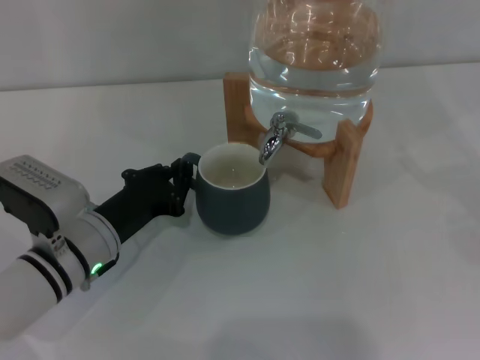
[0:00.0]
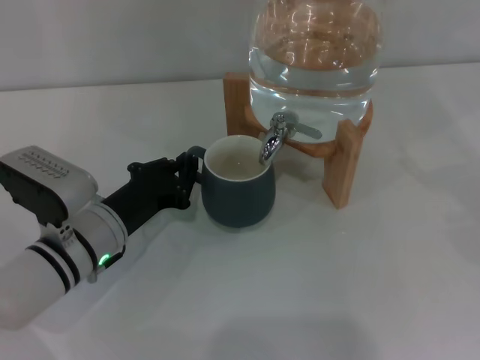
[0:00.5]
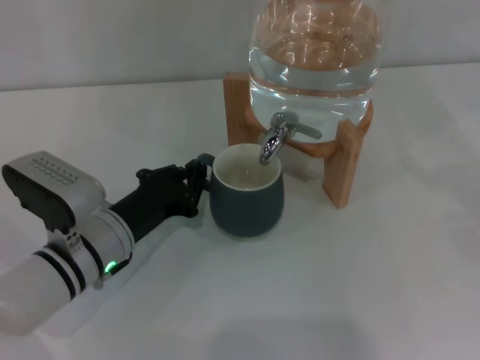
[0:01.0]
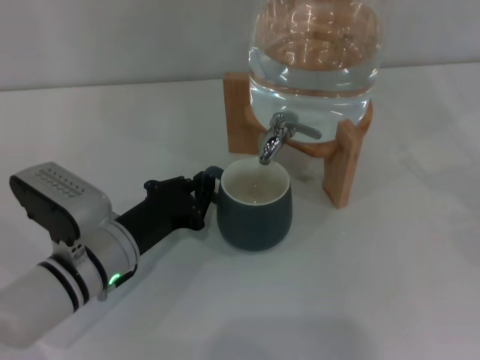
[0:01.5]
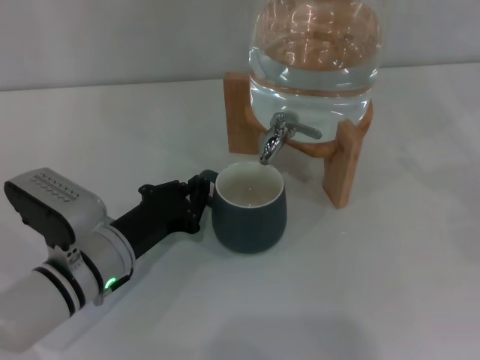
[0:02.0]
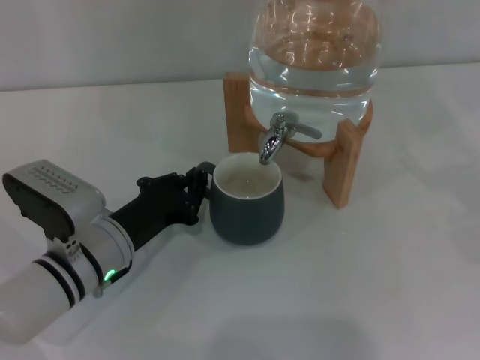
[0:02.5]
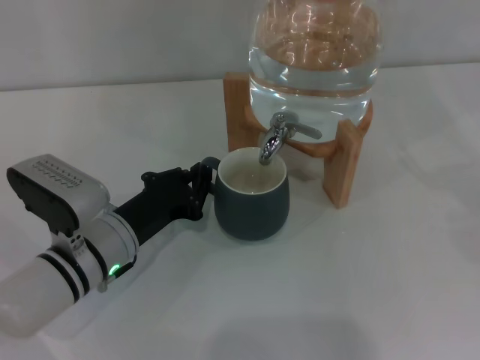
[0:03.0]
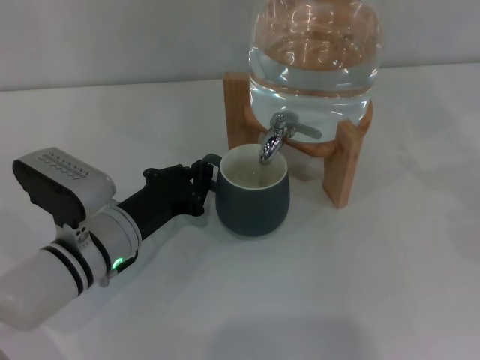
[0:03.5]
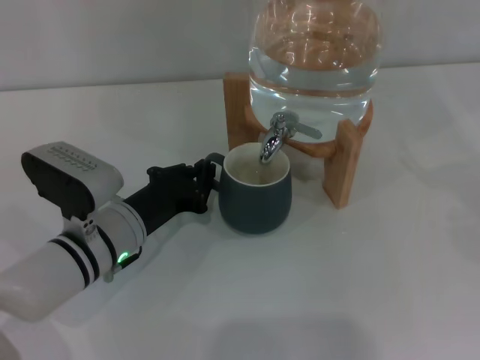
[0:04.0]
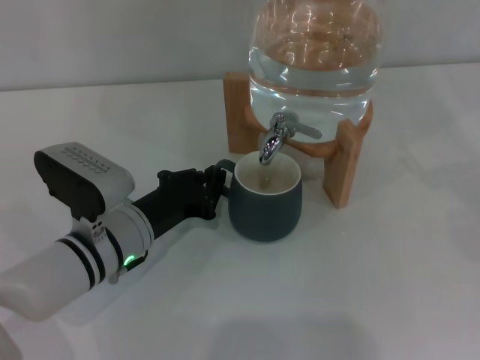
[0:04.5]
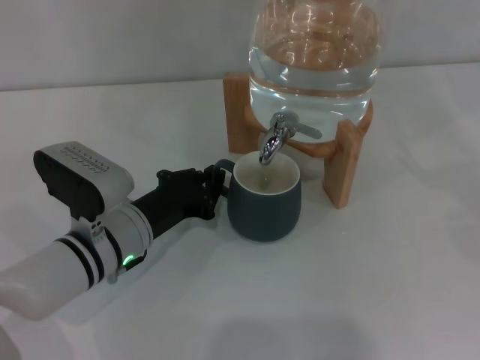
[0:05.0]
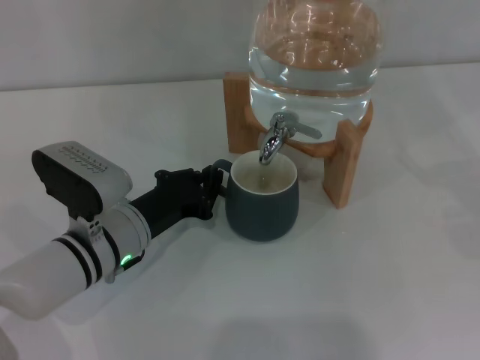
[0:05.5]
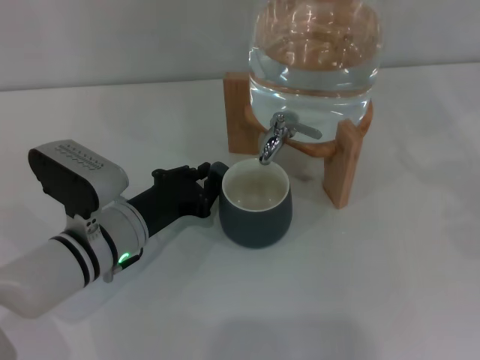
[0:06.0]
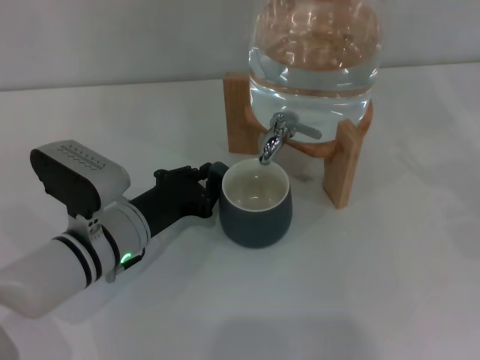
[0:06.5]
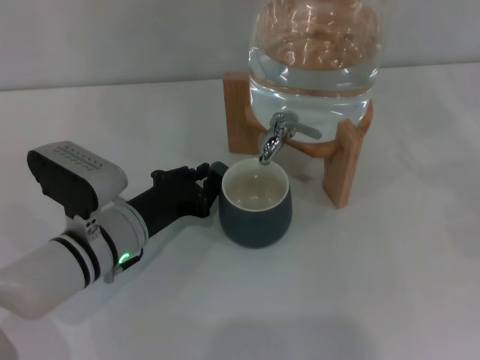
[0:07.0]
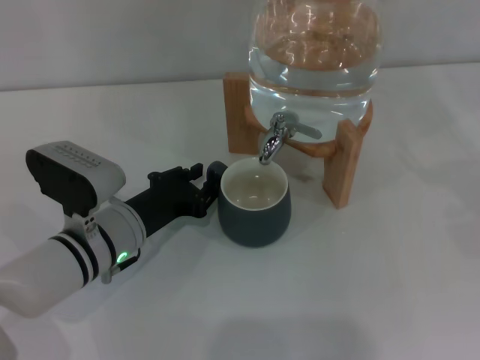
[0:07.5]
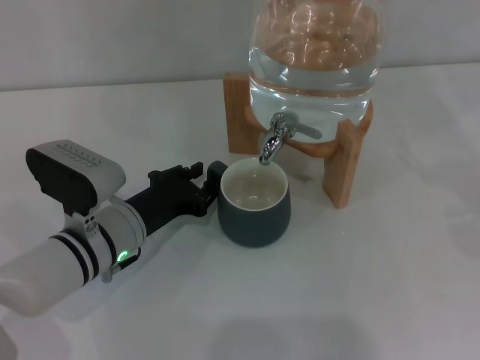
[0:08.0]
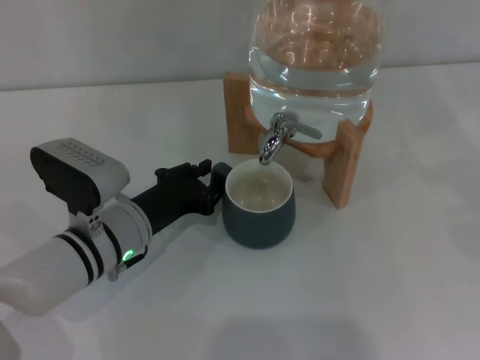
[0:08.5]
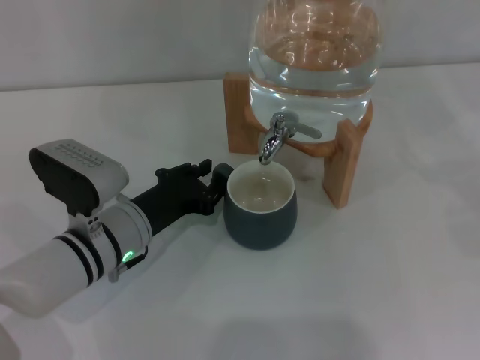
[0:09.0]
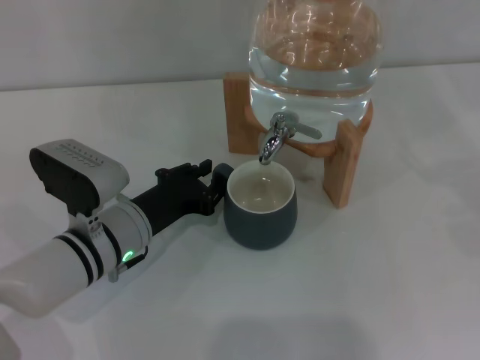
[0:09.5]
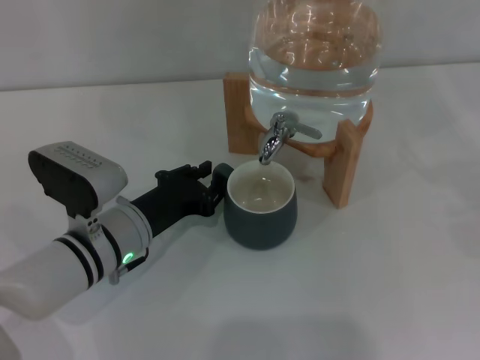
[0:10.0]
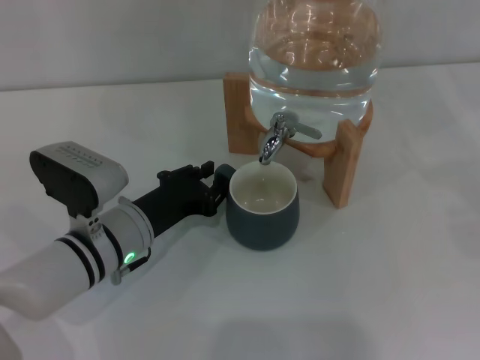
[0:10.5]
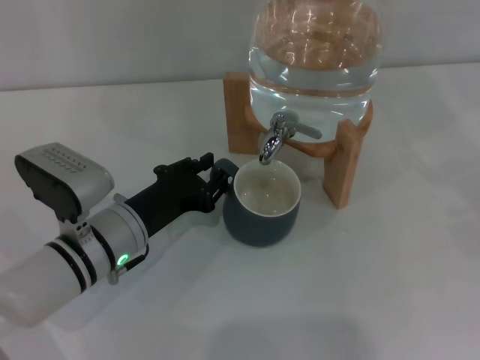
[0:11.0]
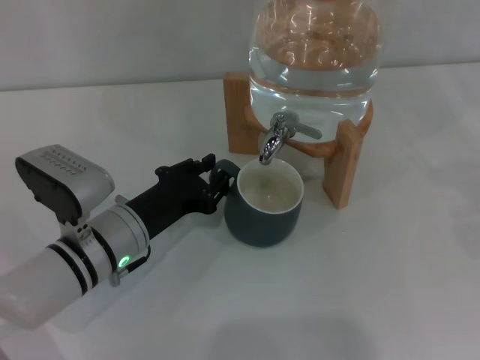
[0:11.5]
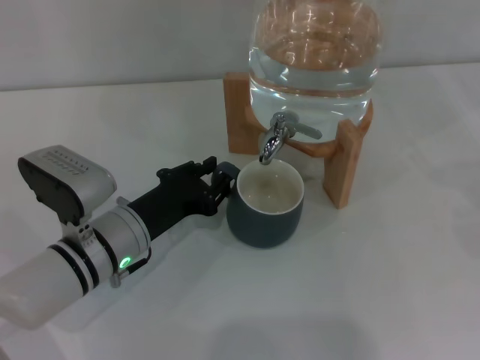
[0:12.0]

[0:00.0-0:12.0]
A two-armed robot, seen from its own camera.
Task of the whole recording: the left gripper pick up the black cup and place it horizontally under the faucet, the right gripper turn on the faucet to fill the cup, and then turn off the faucet.
0:00.0 to 0:04.0: The grippers stay close to where they were, moving slightly.
0:04.0 to 0:10.0: Both grippers stay put.
0:10.0 to 0:12.0: There are only small adjustments of the grippers.

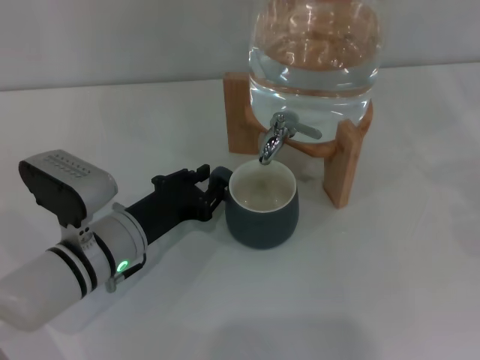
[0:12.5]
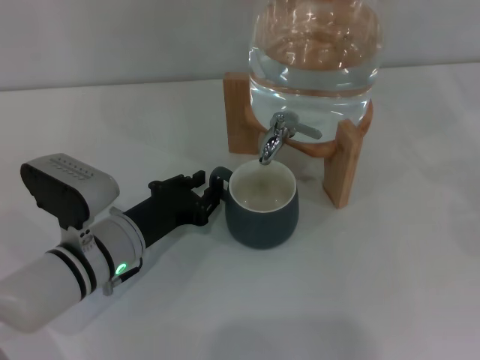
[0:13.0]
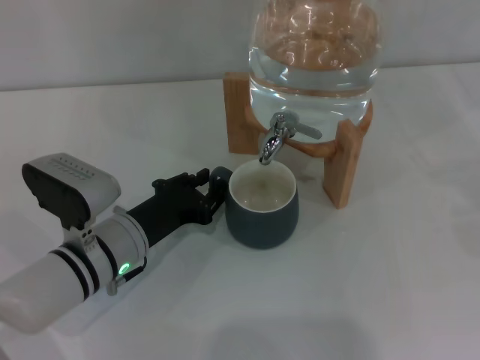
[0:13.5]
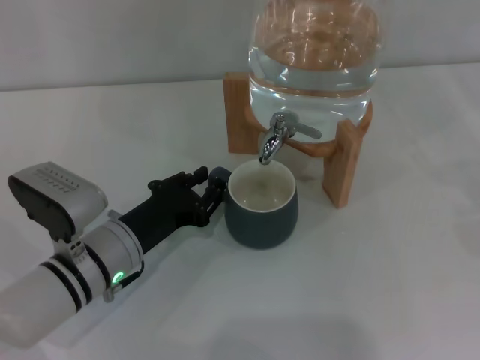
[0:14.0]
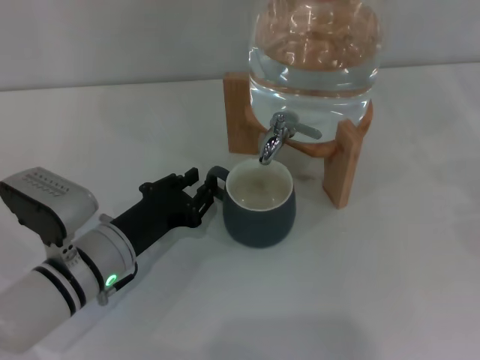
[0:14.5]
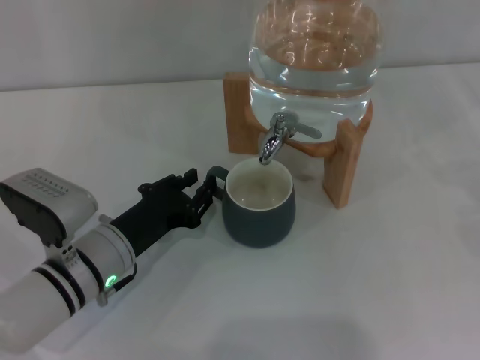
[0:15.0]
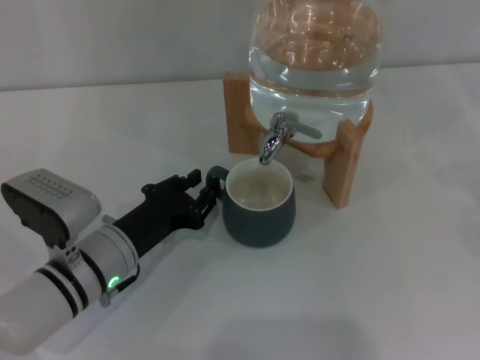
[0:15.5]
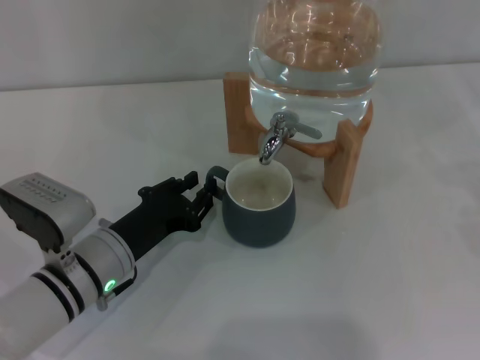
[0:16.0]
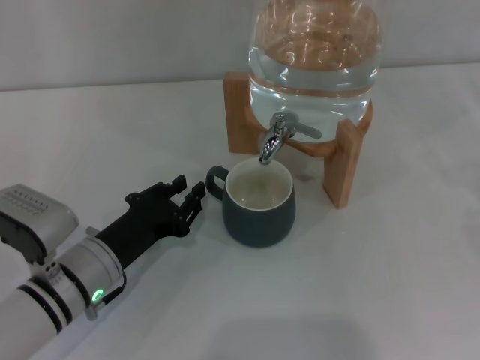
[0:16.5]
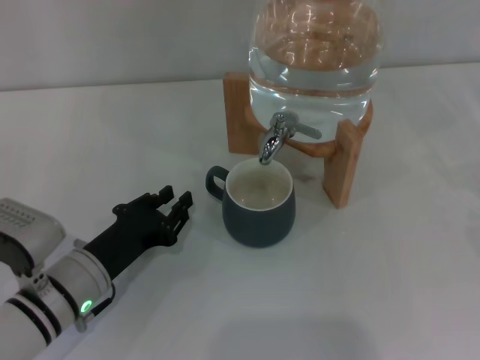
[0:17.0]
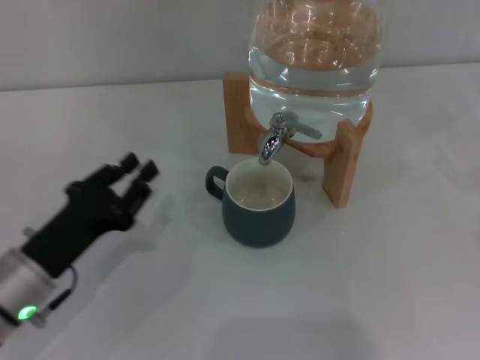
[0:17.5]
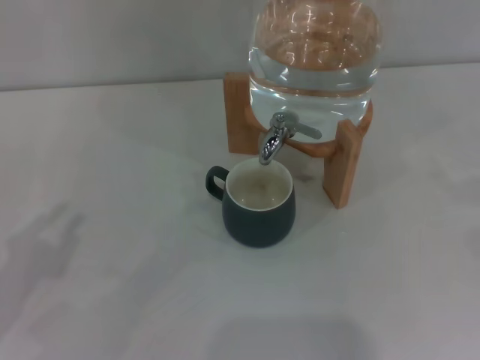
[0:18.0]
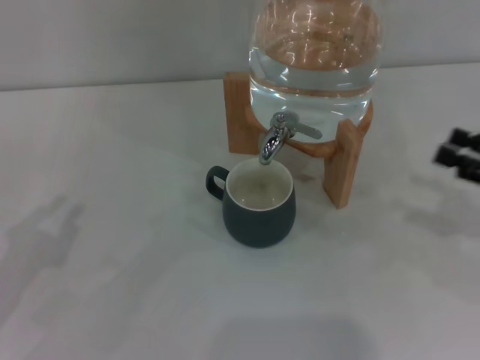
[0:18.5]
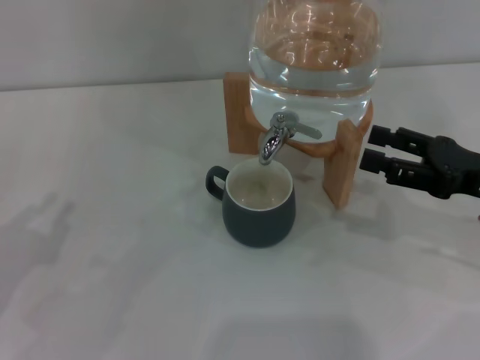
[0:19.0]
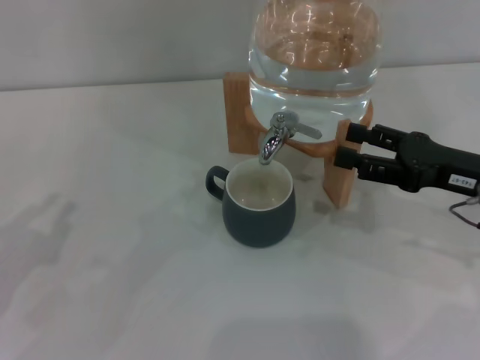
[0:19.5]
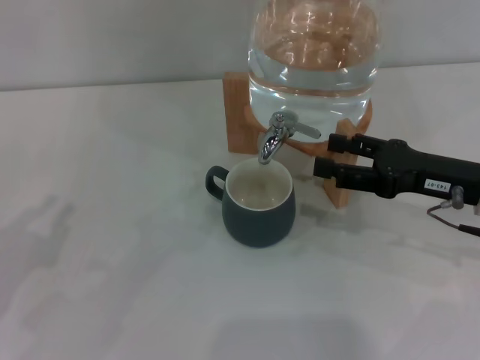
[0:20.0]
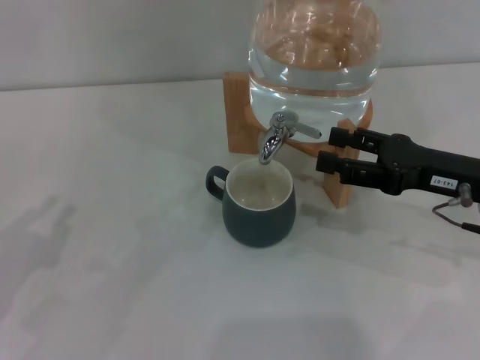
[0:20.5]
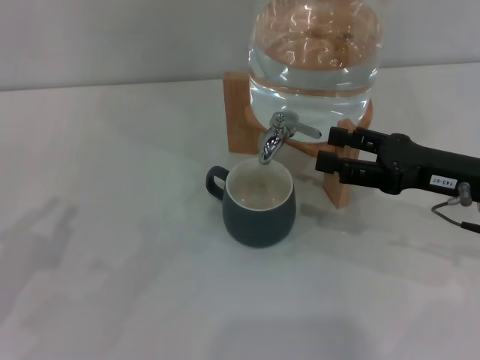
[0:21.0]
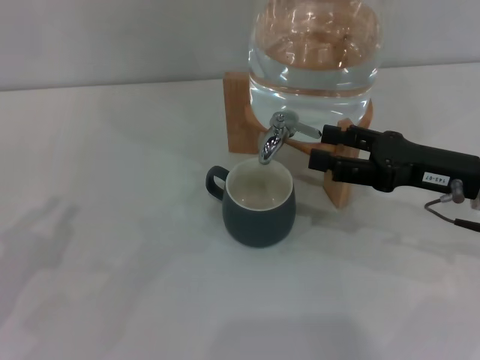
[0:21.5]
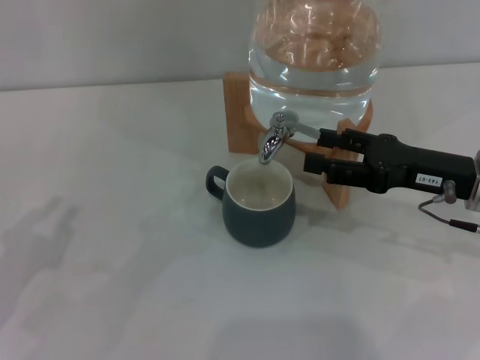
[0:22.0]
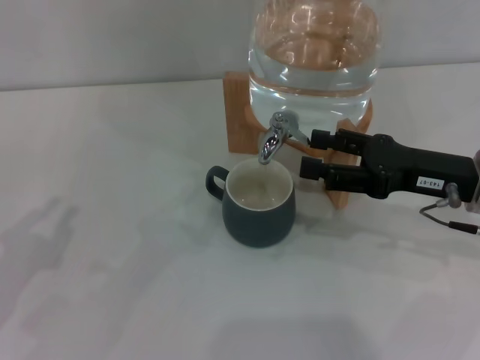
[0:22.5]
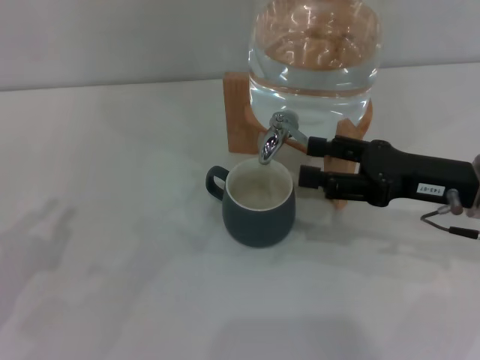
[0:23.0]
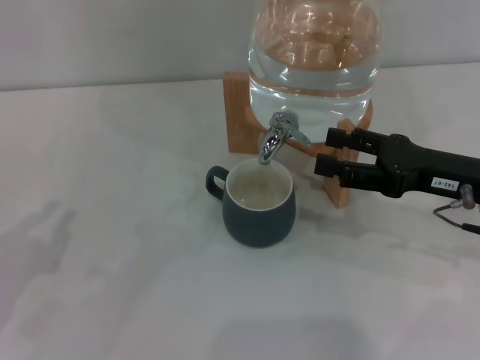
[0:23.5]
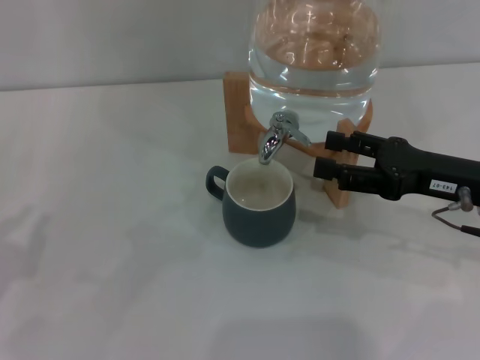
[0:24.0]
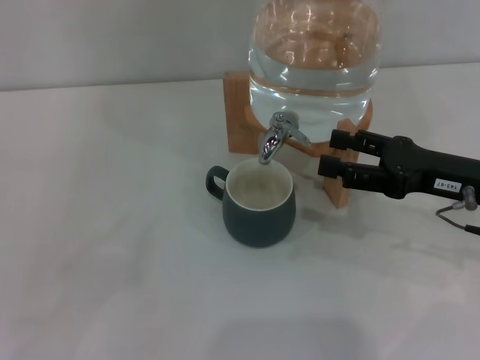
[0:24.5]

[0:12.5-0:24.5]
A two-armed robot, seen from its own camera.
Task of the whole recording: the left gripper pick up the black cup and place it horizontally under the faucet, the right gripper turn on the faucet to fill the cup, and then turn off the faucet.
Step, 0:12.5 to 0:17.0: Move the cup beneath the water dispenser nozzle with the left gripper.
0:12.5 to 0:16.5: The grippers make only small movements.
0:16.5 to 0:18.5: The left gripper travels to the left, upward and backward by roughly 15 cm, while the right gripper goes approximately 10 cm to the left.
0:18.5 to 0:20.5: The right gripper moves to the left, approximately 10 cm.
0:20.5 to 0:22.5: The grippers move only a little.

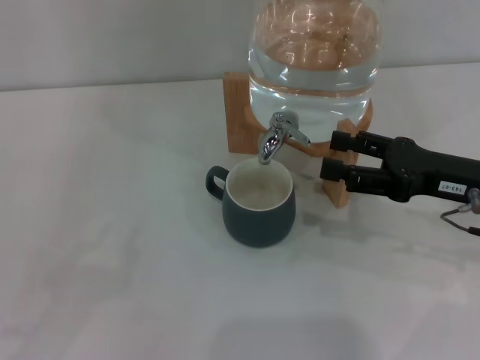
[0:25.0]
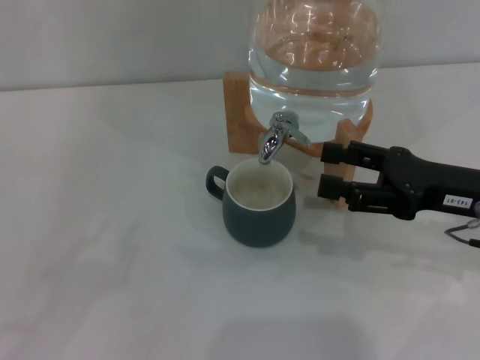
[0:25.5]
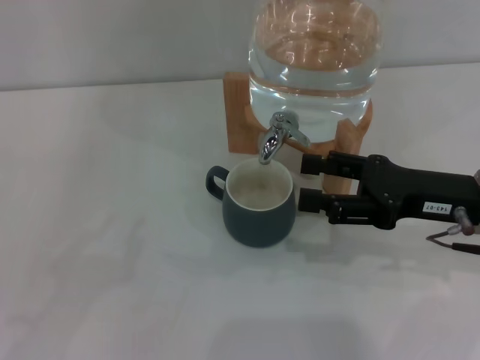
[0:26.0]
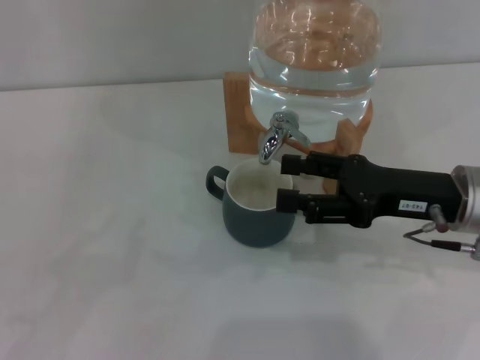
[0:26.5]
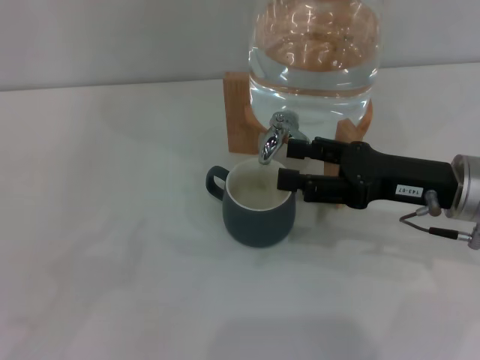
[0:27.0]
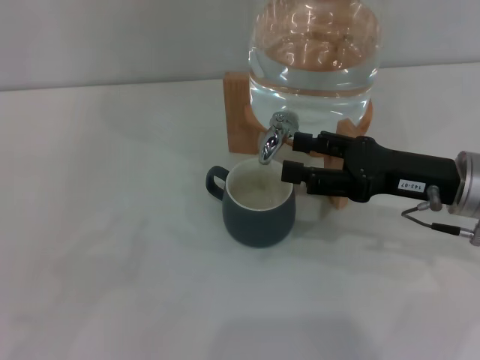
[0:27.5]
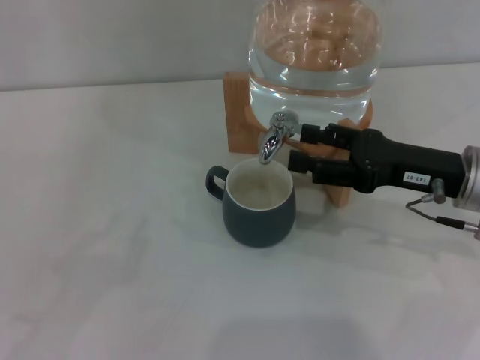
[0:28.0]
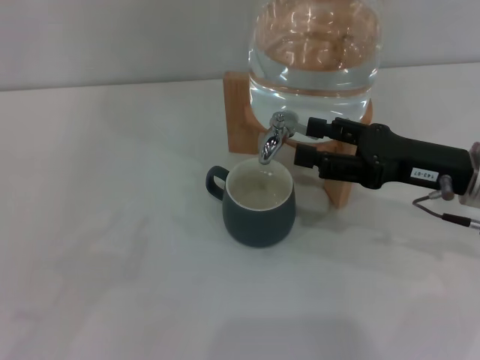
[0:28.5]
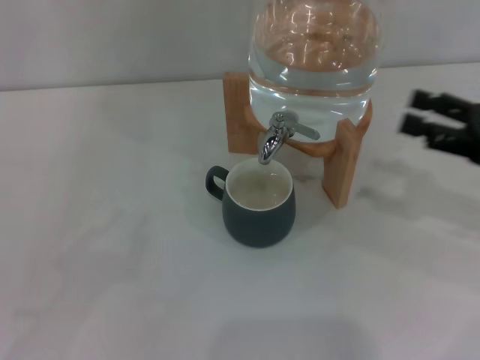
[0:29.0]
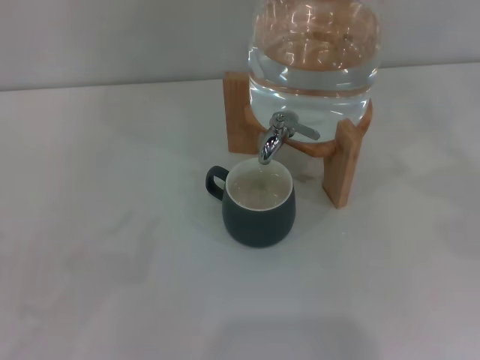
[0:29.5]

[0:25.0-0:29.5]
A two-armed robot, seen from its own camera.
Task of the whole recording: the left gripper pick up the black cup and place it horizontally under the faucet, the right gripper turn on the faucet to fill the cup, and then turn off the faucet.
Step, 0:27.0 to 0:28.5: Close the dispenser valve with the right gripper.
0:25.0 to 0:27.0: The grippers make only small movements.
0:27.0 to 0:29.5: The right gripper heads to the right, covering approximately 20 cm.
